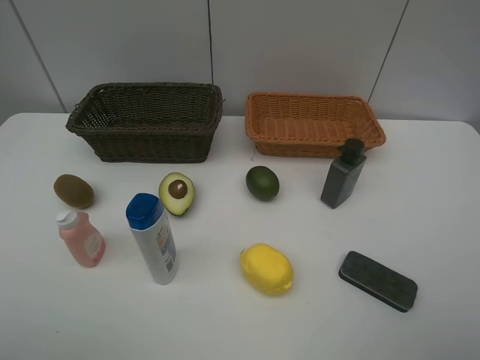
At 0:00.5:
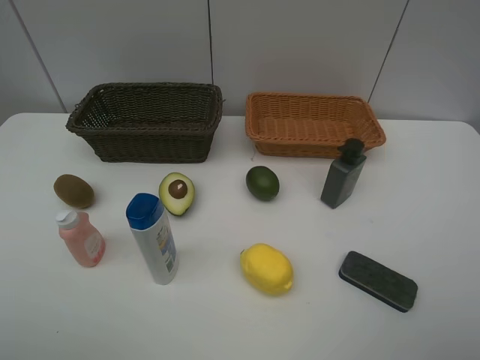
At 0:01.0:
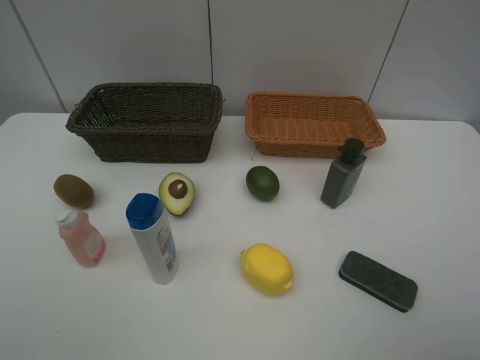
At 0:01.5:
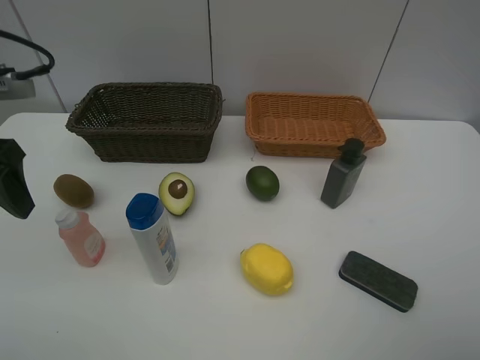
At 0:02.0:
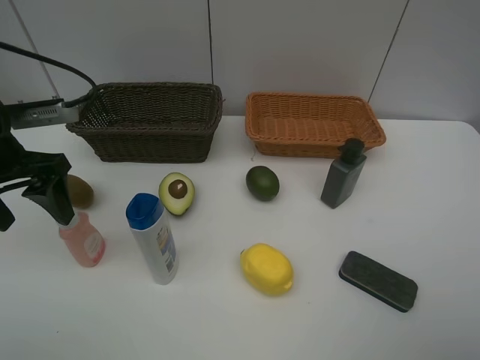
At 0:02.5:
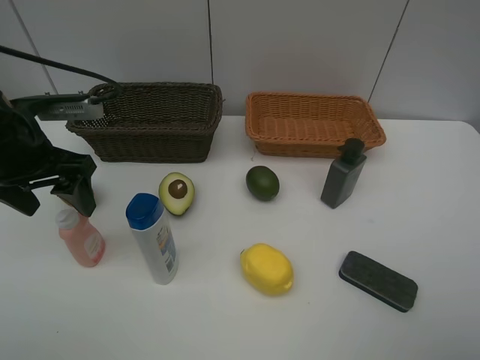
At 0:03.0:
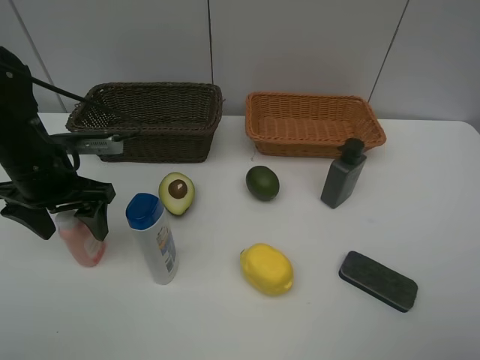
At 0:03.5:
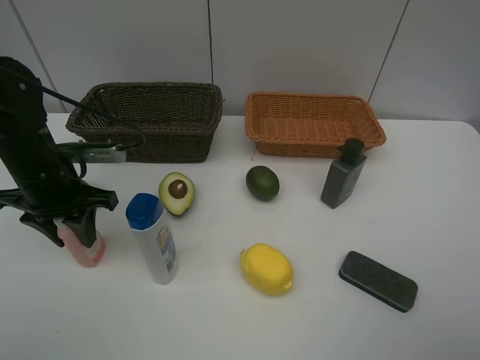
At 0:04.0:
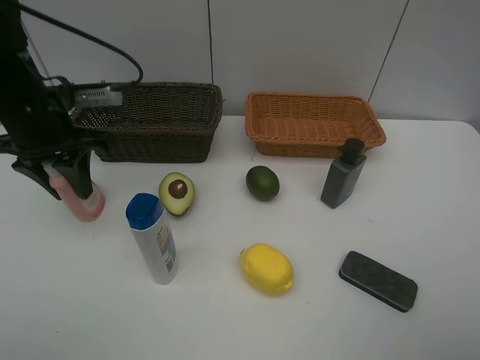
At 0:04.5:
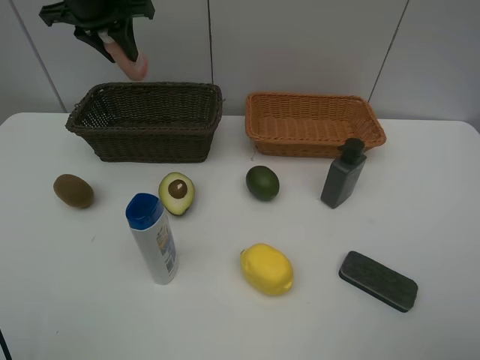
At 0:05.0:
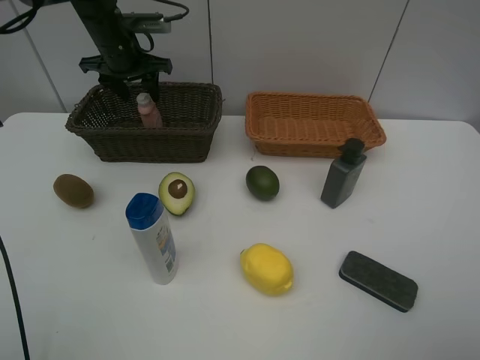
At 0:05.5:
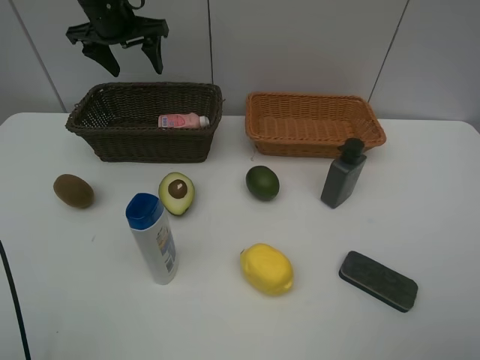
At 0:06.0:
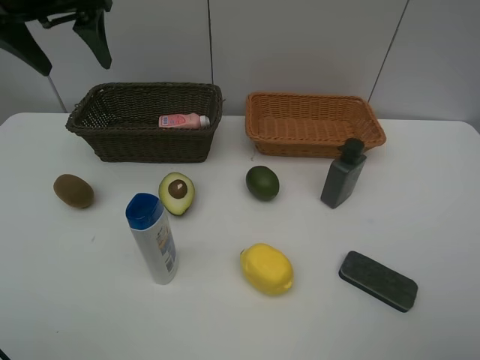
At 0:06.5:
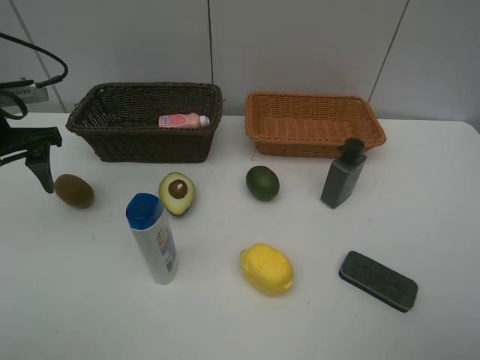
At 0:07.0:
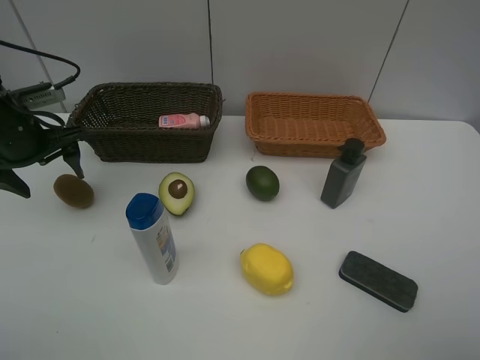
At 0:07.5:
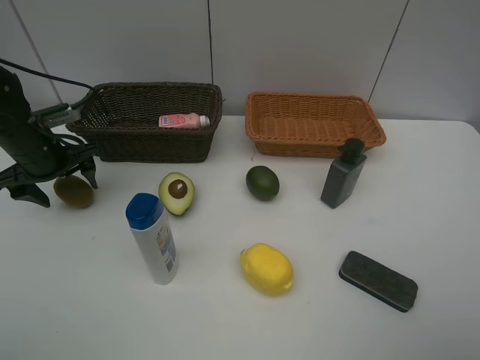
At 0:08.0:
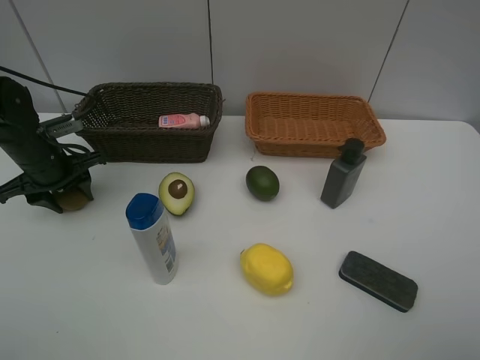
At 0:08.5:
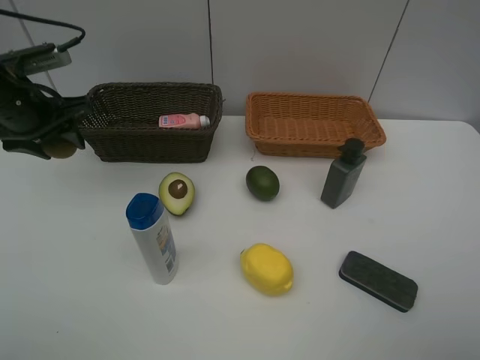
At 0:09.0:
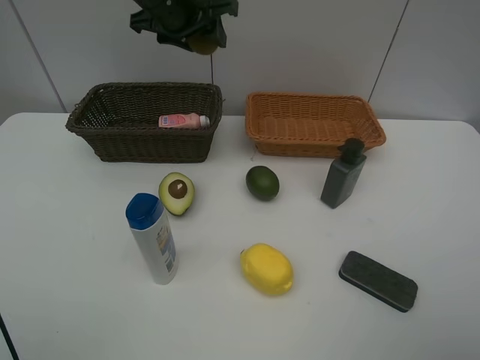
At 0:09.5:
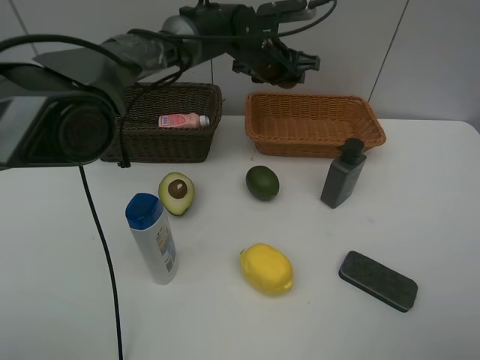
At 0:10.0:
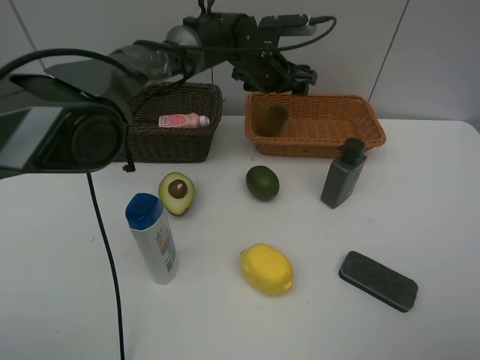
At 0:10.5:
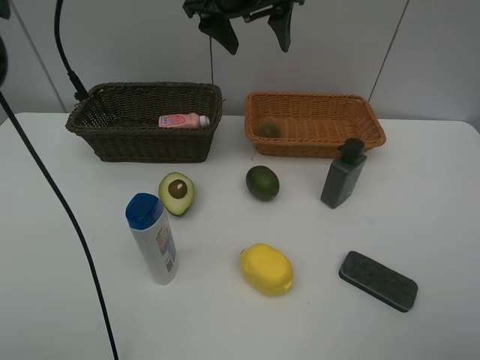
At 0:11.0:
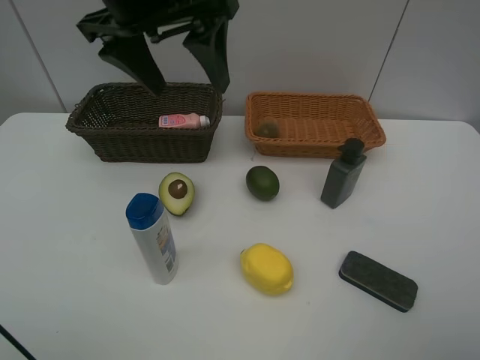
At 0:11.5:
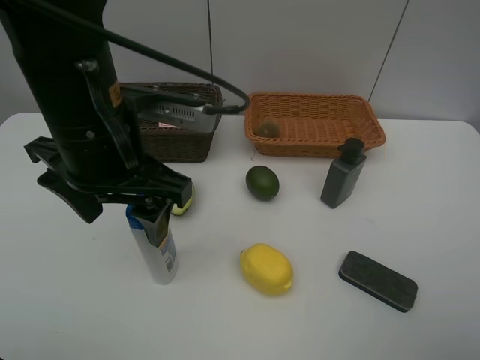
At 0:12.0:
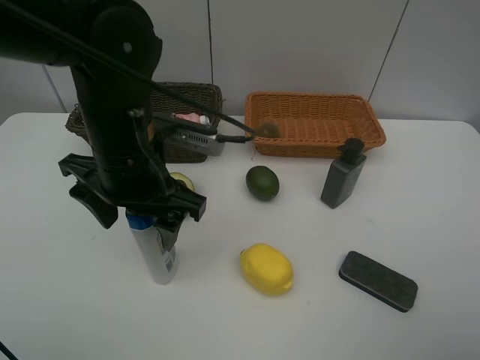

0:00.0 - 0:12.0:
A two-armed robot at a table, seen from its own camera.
Task of the whole recording: Place multiple objects separately in different baskets.
Step, 0:00.0 - 0:03.5: Pick up the laundry detergent with left gripper.
Step, 0:04.0 - 0:05.0: Place the laundry detergent in the dark basket with left gripper.
Step, 0:05.5 - 0:08.0: Pick up kiwi with left gripper.
Step, 0:08.5 - 0:09.5: Place the kiwi in the light basket with left gripper.
0:00.0 - 0:02.0: The left gripper heads forward, covering approximately 25 cm.
0:02.0 - 0:04.0: The left gripper heads forward, covering roughly 5 cm, goes downward and returns, some 5 cm each way, and closes.
0:04.0 - 0:06.0: The left gripper moves upward, approximately 10 cm, goes forward and returns, roughly 20 cm each way, and opens.
0:06.0 - 0:08.0: The left gripper travels downward by some 25 cm, and closes its fingers.
0:08.0 - 0:10.0: The left gripper heads to the right and forward, covering some 35 cm, and opens.
0:10.0 - 0:12.0: The left gripper heads backward and to the left, covering roughly 30 cm.

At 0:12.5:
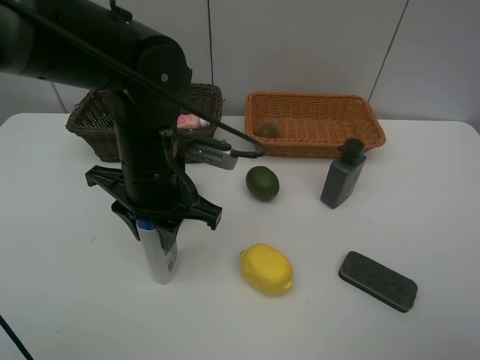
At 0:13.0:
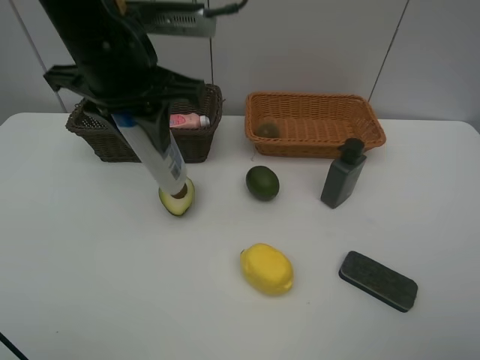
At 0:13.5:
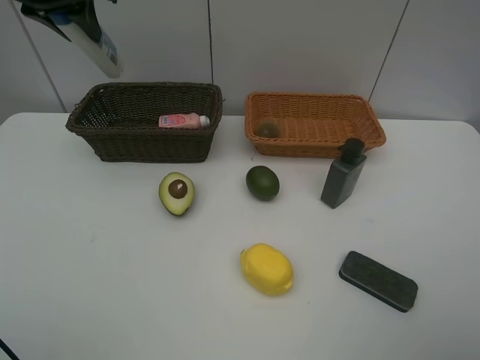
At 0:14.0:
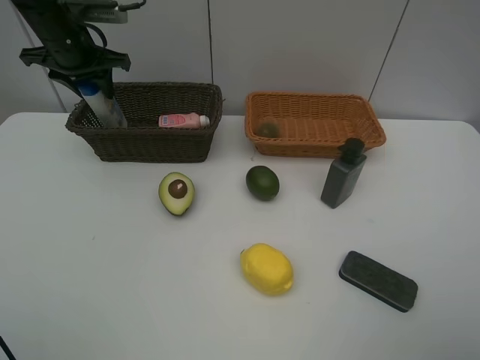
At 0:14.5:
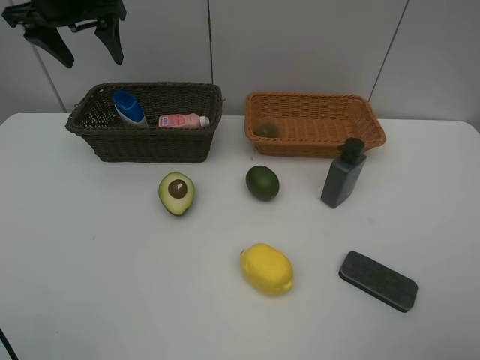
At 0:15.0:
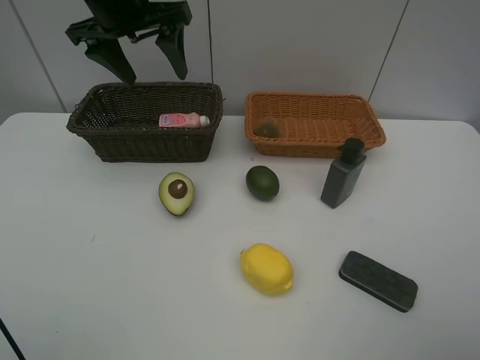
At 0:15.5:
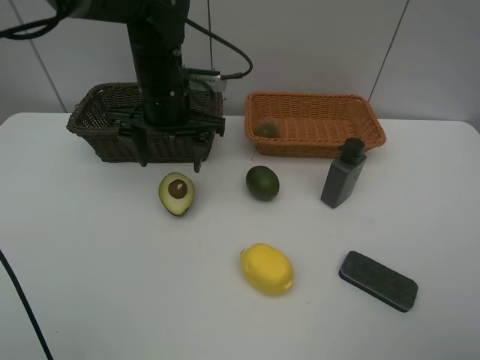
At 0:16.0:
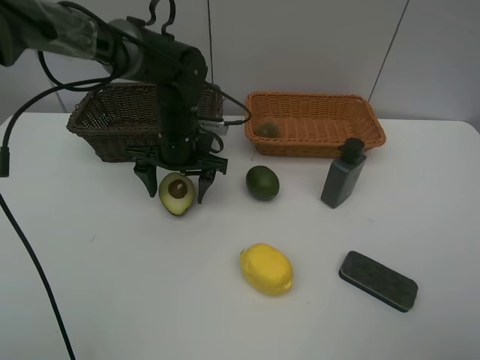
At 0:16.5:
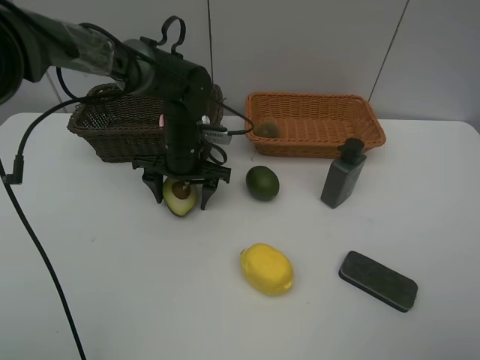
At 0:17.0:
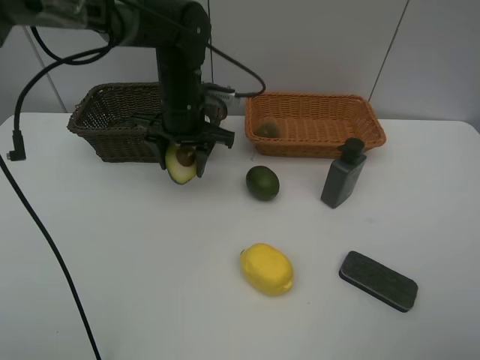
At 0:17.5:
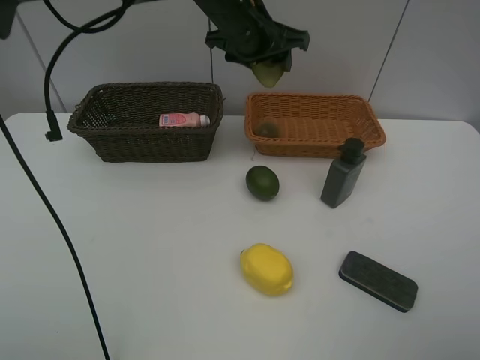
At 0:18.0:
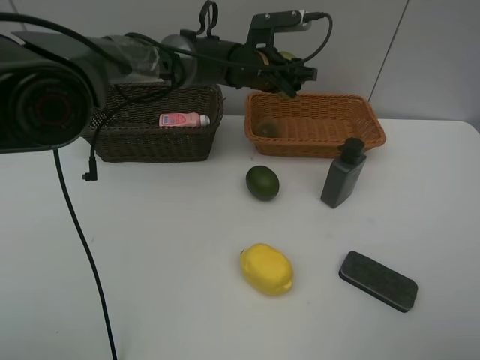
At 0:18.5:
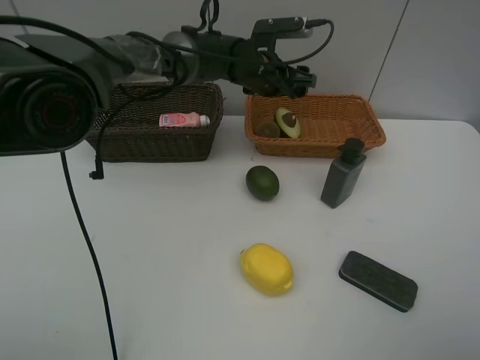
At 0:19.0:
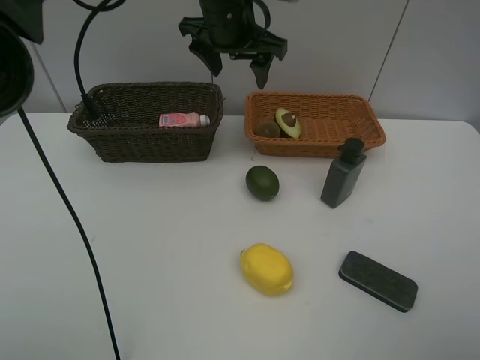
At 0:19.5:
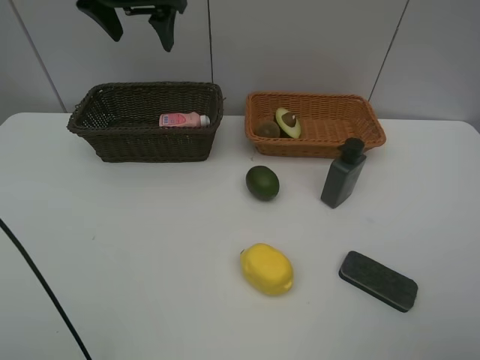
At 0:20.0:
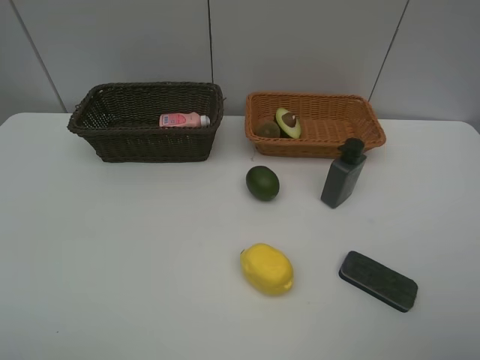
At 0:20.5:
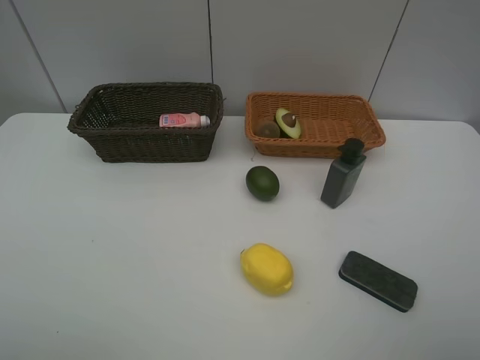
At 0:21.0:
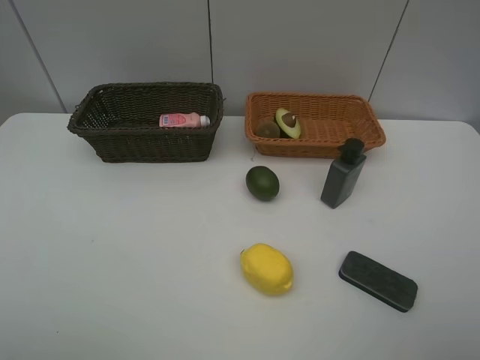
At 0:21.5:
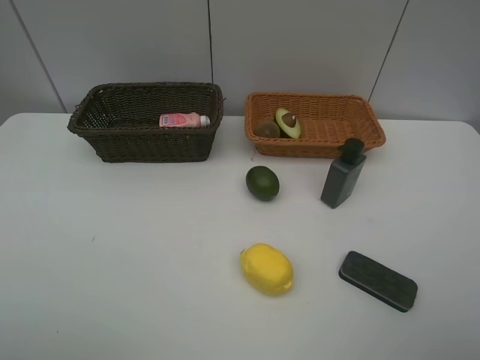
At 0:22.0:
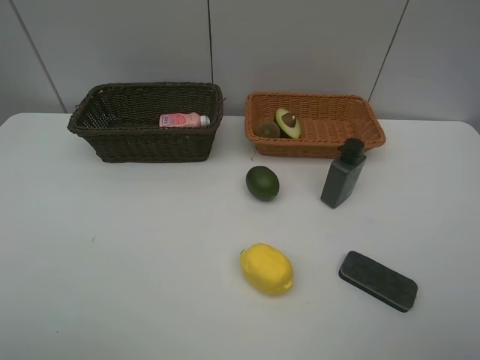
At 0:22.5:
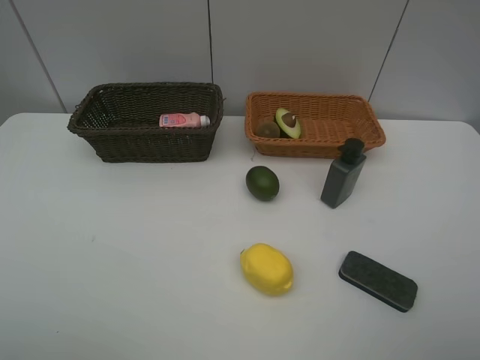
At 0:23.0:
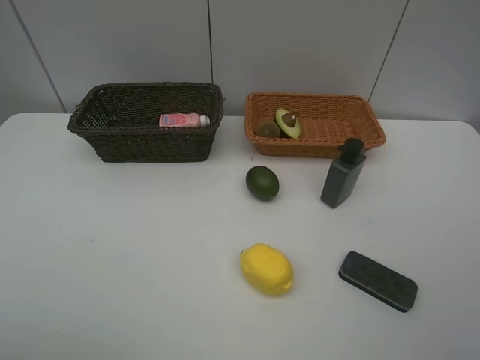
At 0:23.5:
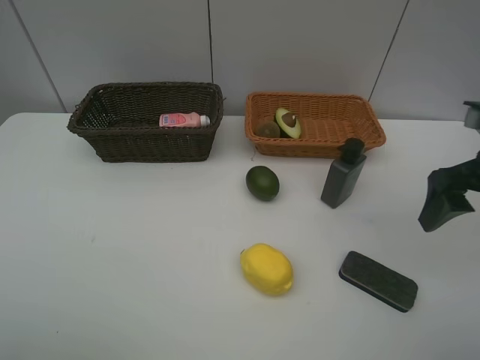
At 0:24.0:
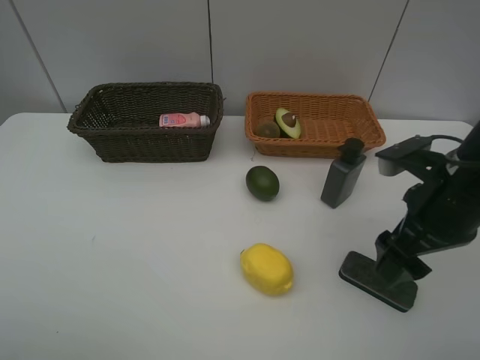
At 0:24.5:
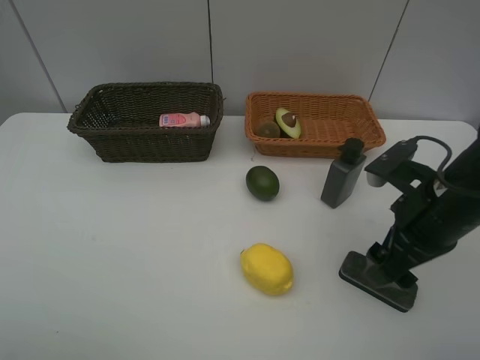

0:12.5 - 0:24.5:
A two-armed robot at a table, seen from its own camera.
Task of the whole recording: Place multiple objects separately in different baskets.
Step, 0:13.0 - 0:14.0: Place the shampoo in the dark basket with left gripper.
Step, 0:14.5 - 0:16.5: Pick up the avocado with left gripper.
Step, 0:17.0 - 0:18.0: Place the avocado in the light basket with left gripper.
0:12.5 - 0:14.5: The left gripper moves forward, to the left and upward, about 30 cm, and opens up.
0:14.5 - 0:16.5: The left gripper is displaced downward and to the right by some 30 cm.
0:16.5 - 0:18.5: The left gripper is displaced to the right, forward and upward by approximately 15 cm.
0:18.5 - 0:20.5: The left gripper travels backward and to the left by some 60 cm.
0:22.5 - 0:24.5: The right gripper moves forward, downward and to the left, about 25 cm.

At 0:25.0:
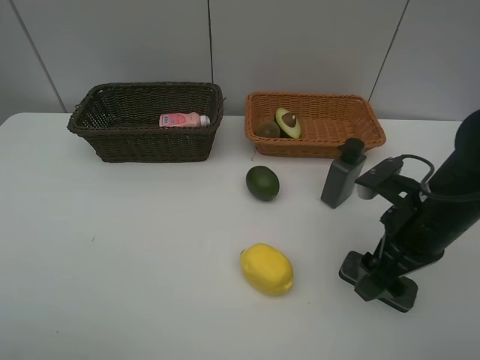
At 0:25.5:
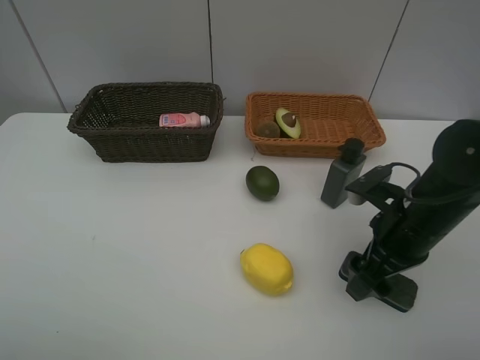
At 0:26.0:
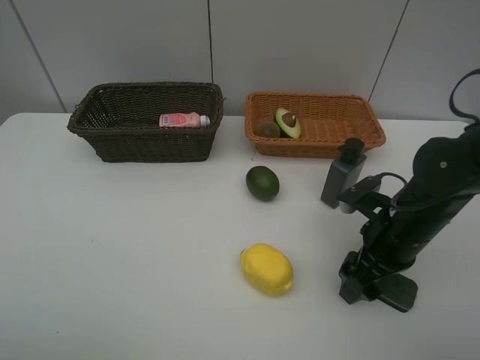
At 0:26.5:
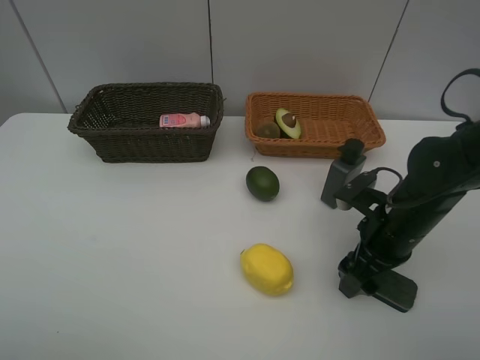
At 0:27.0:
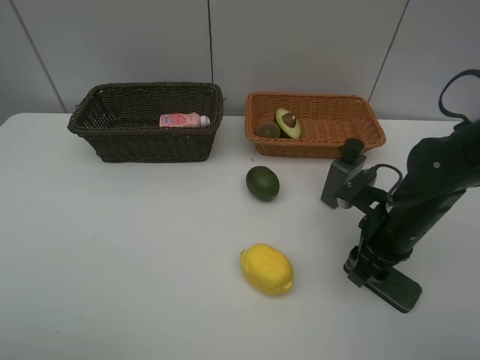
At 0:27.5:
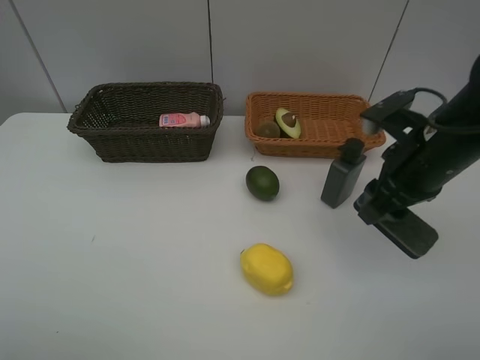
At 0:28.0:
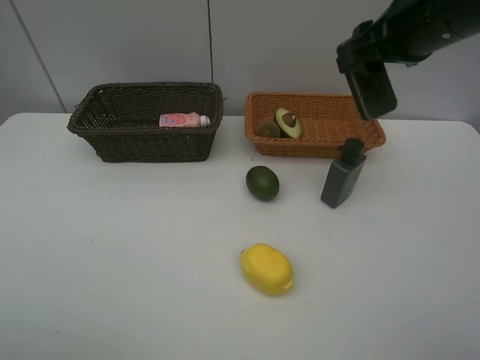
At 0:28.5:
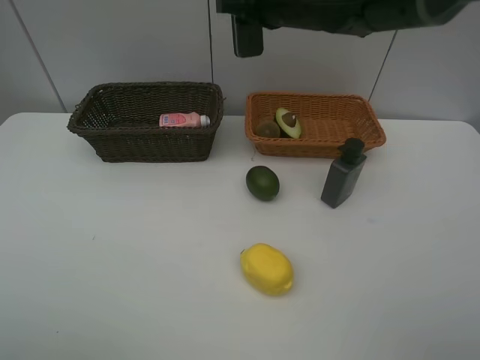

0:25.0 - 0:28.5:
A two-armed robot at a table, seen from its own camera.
Task of the whole recording: Place multiple objects separately in different baskets.
Step, 0:25.0 - 0:27.0: Pick up blackboard eraser with right gripper.
0:25.0 - 0:27.0: The right gripper travels downward by approximately 5 cm, and closes.
0:27.0 - 0:28.5: The right gripper is displaced forward, upward and to the left by roughly 30 cm.
